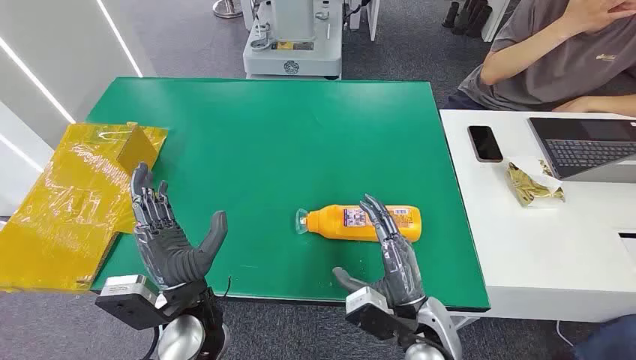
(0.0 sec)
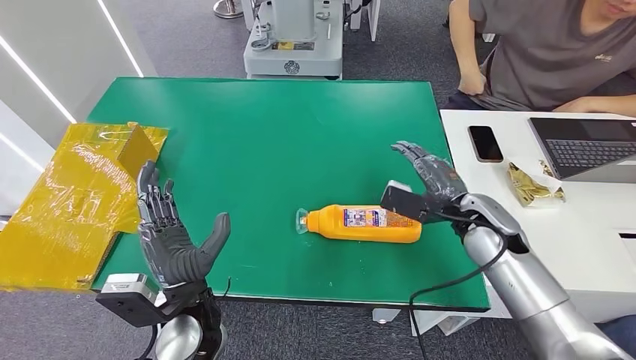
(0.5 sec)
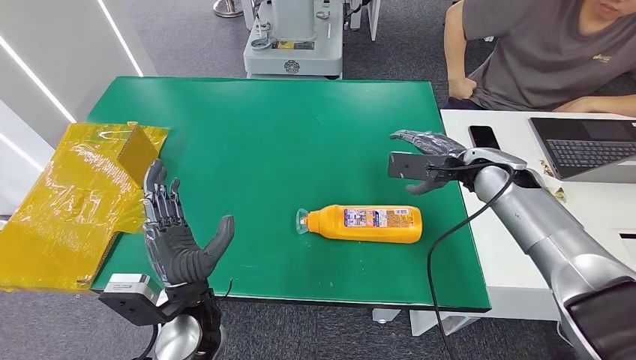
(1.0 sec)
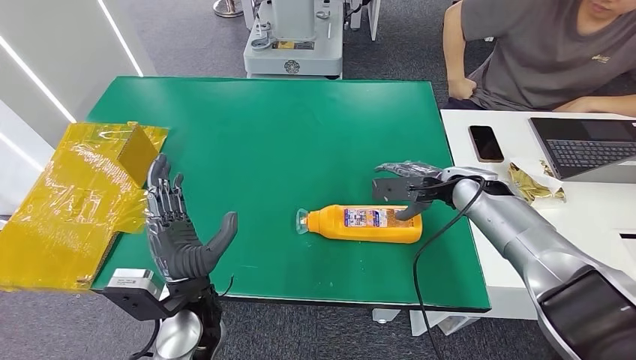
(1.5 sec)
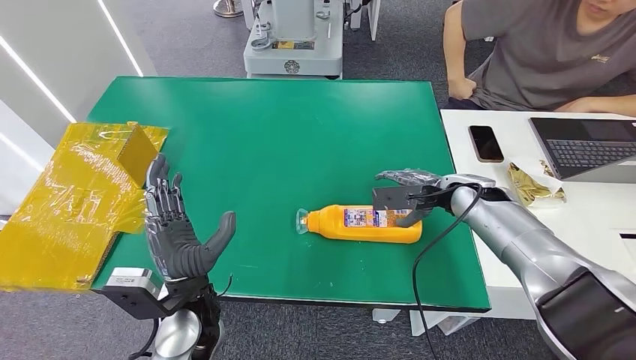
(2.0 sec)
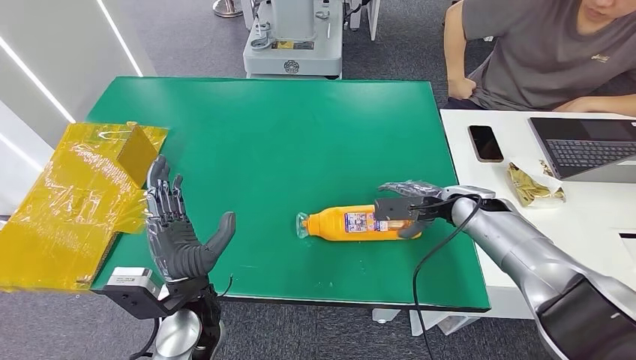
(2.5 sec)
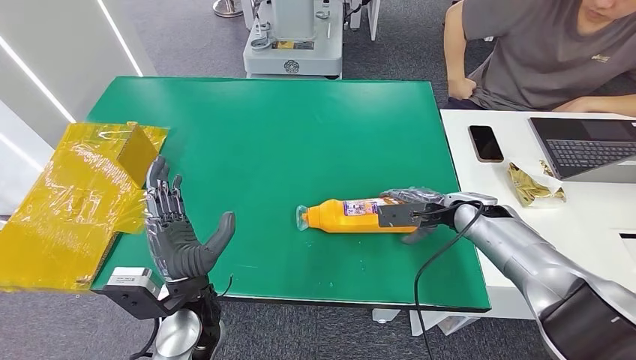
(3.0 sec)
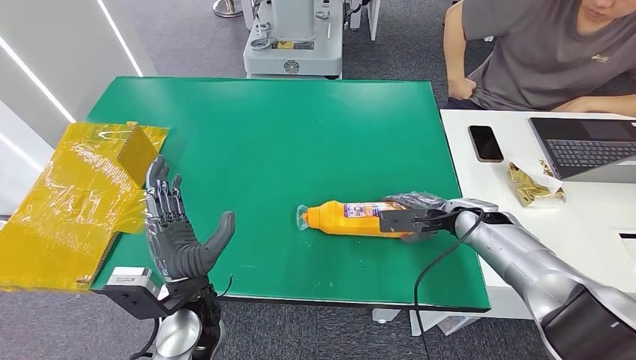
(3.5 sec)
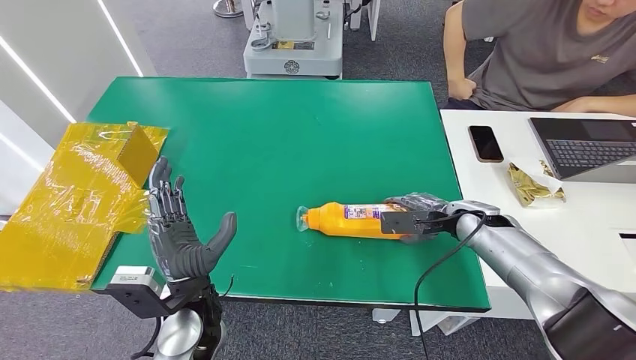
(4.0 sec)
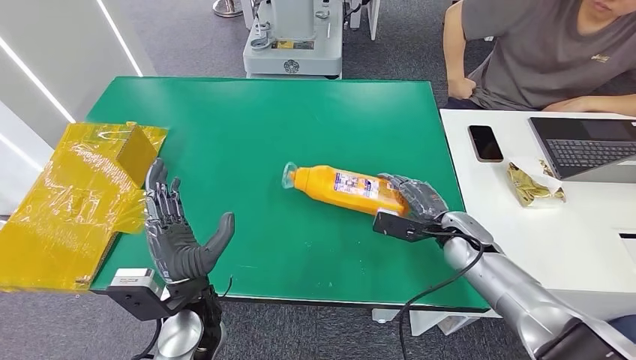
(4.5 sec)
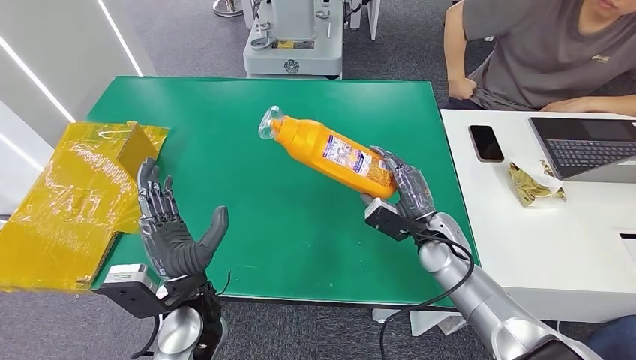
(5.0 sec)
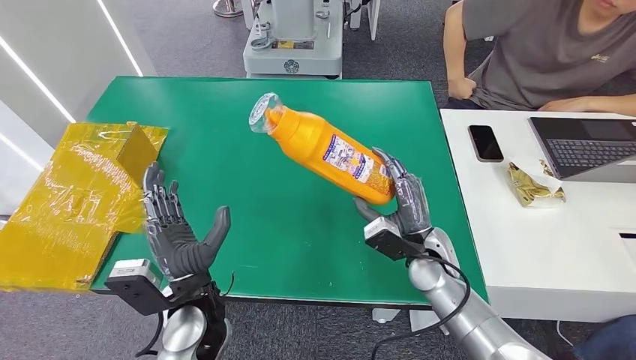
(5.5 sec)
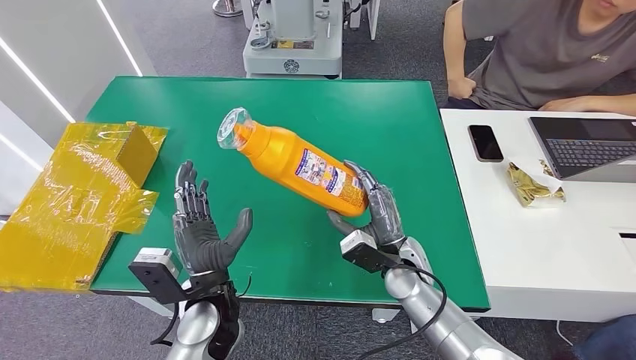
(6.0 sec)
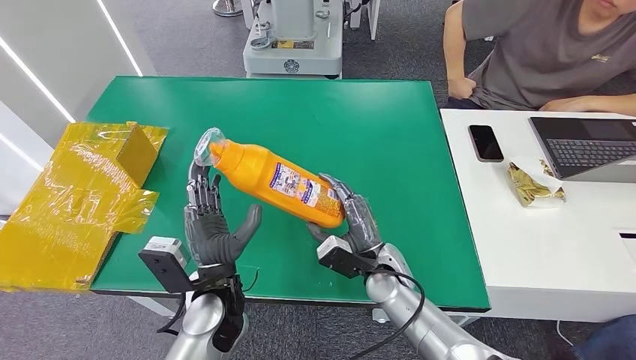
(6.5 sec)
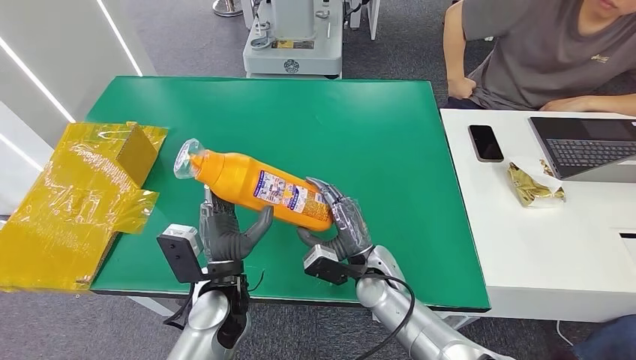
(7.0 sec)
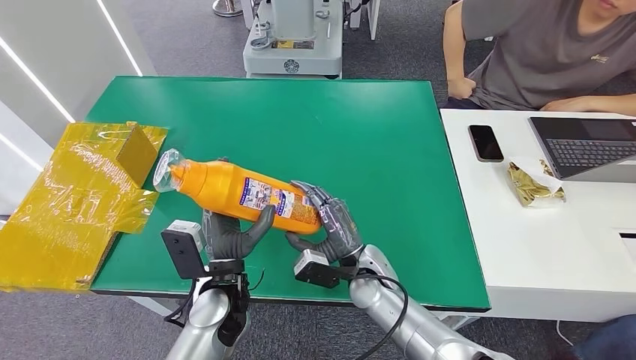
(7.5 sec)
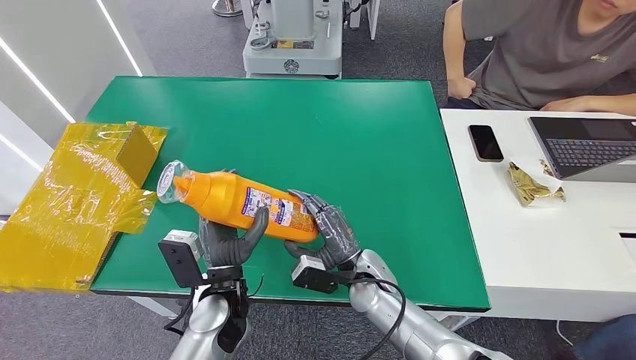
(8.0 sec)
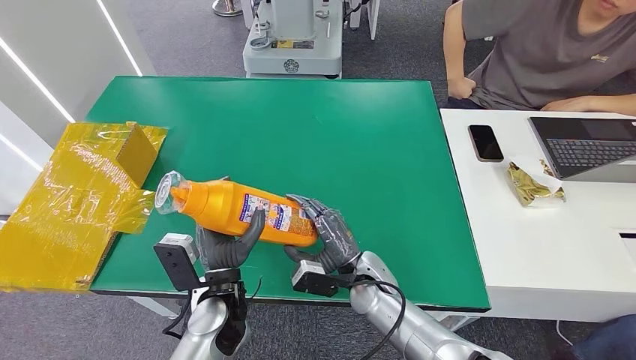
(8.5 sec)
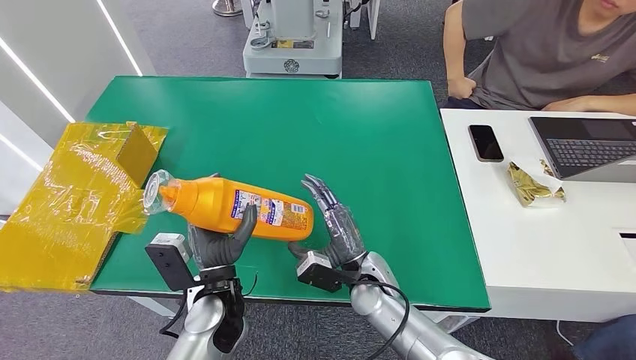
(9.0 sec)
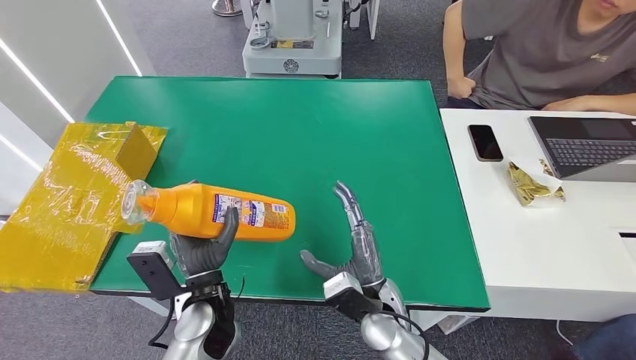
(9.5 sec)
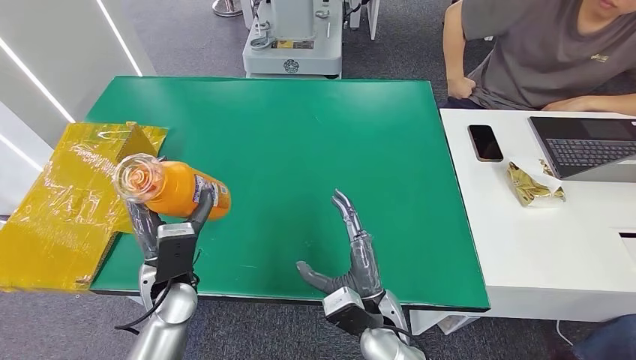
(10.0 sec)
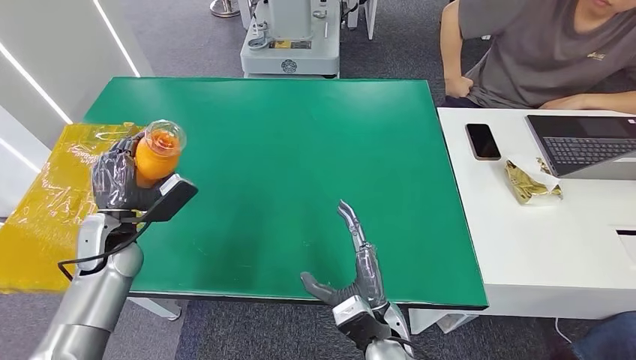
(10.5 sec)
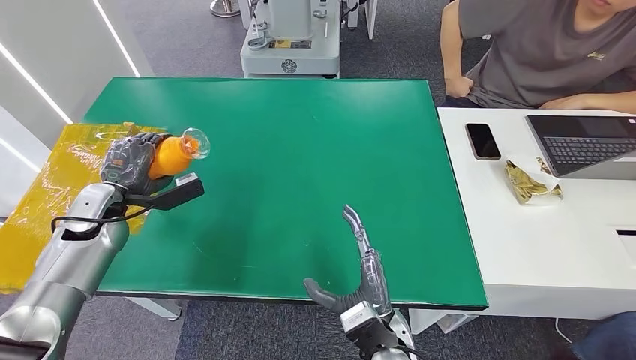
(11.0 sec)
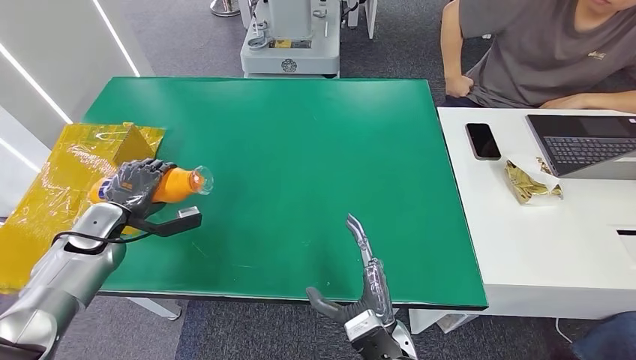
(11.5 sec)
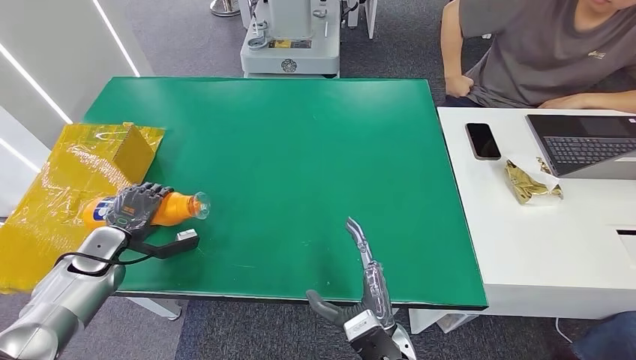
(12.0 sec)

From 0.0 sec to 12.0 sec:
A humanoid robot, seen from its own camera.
Step, from 0.0 sec to 5.5 sec: Pick up the bottle from the table.
From 2.0 sec to 4.0 sec: The right hand changes place by some 5 cm.
From 4.0 sec to 6.0 sec: The right hand goes roughly 20 cm to the left and backward.
From 6.0 sec to 8.0 sec: The right hand travels to the left by about 5 cm.
From 8.0 sec to 10.0 sec: The left hand heads to the left, covering roughly 10 cm, while the right hand heads backward, covering some 10 cm.
From 10.0 sec to 12.0 sec: The left hand travels to the left by approximately 25 cm. The right hand goes approximately 5 cm backward.

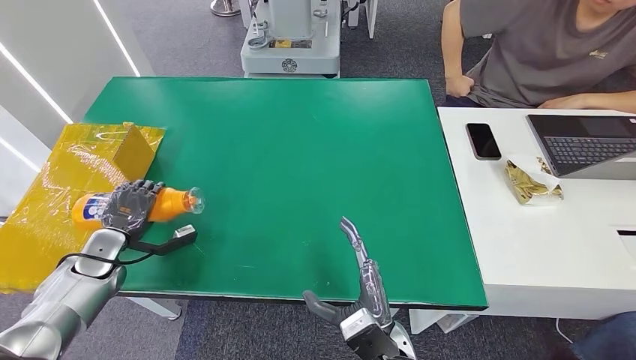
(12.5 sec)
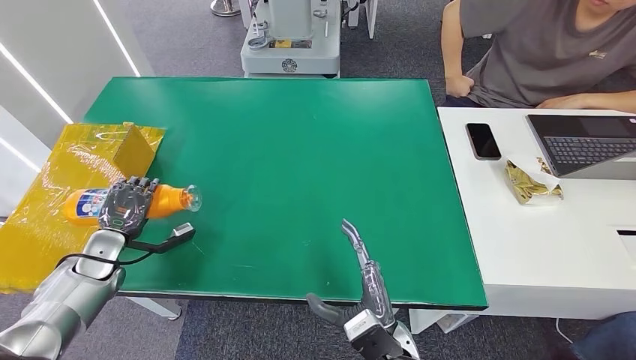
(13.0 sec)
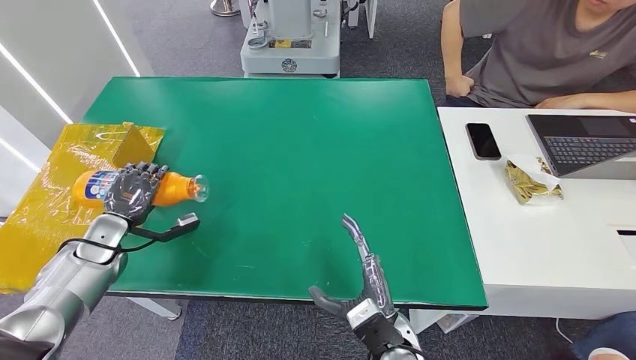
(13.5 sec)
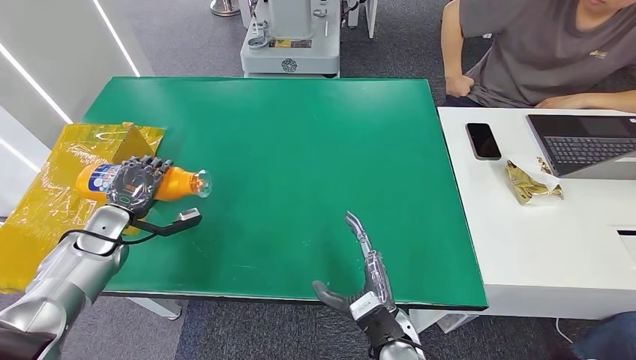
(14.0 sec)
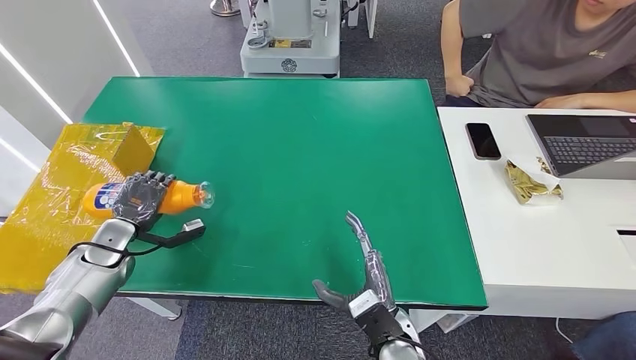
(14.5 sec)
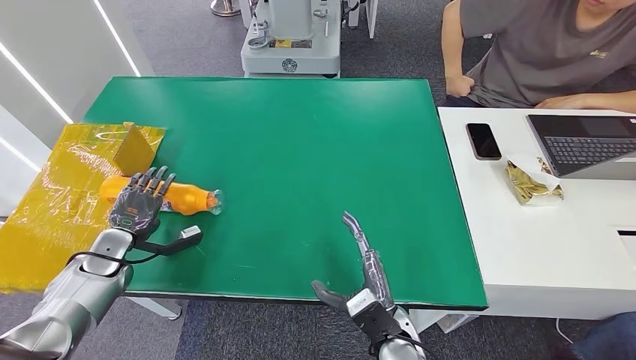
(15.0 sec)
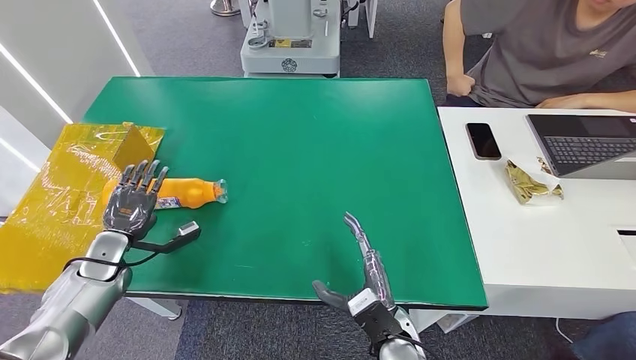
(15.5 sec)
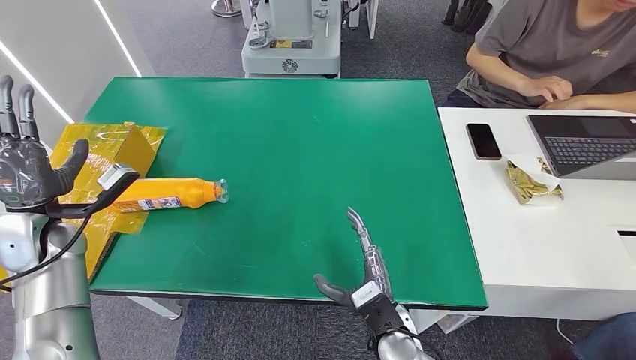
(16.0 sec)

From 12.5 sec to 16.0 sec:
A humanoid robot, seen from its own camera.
Step, from 12.5 sec to 16.0 sec: Turn the bottle to the front side.
From 12.5 sec to 14.5 sec: The hands stay close to where they were, moving slightly.
From 14.5 sec to 16.0 sec: The left hand goes some 10 cm upward.
